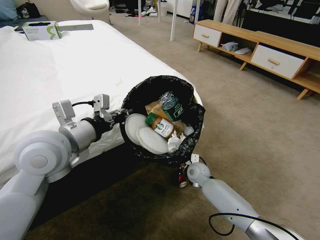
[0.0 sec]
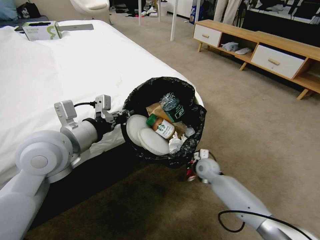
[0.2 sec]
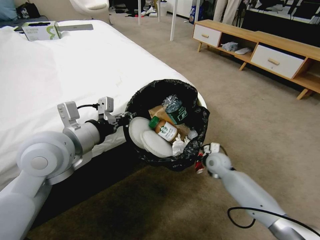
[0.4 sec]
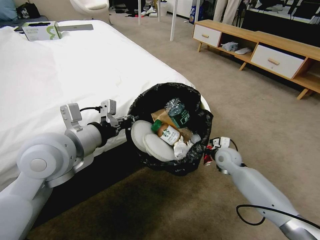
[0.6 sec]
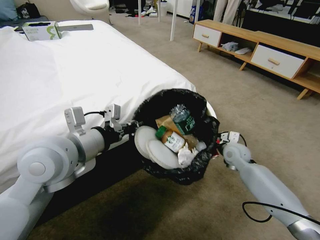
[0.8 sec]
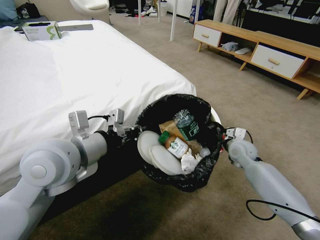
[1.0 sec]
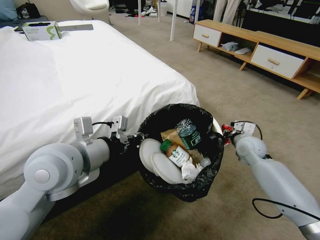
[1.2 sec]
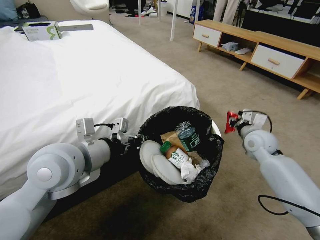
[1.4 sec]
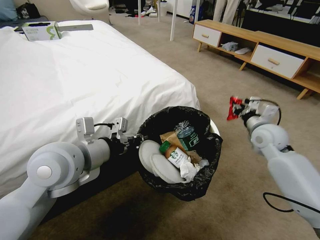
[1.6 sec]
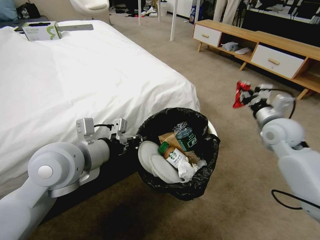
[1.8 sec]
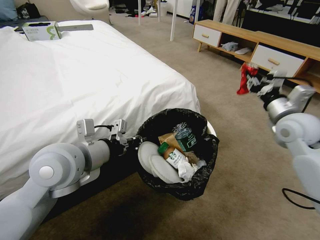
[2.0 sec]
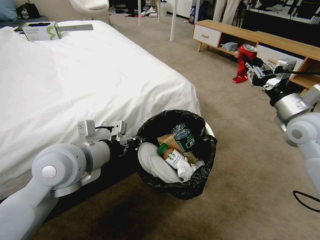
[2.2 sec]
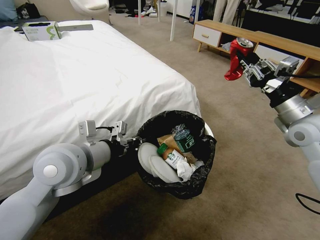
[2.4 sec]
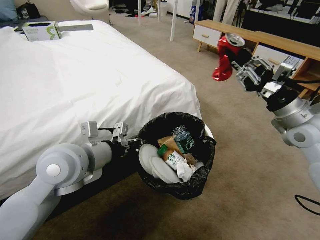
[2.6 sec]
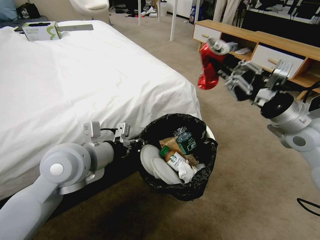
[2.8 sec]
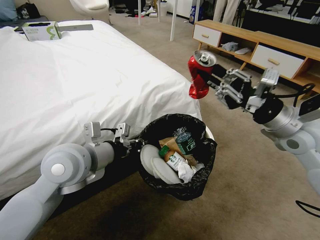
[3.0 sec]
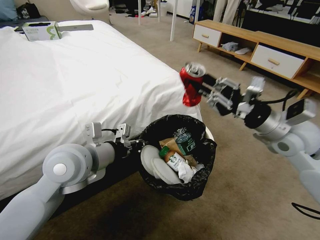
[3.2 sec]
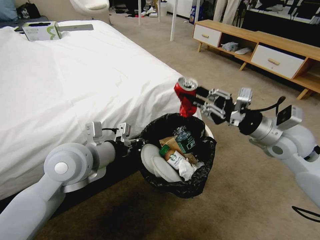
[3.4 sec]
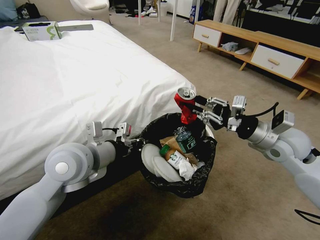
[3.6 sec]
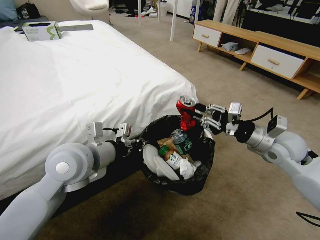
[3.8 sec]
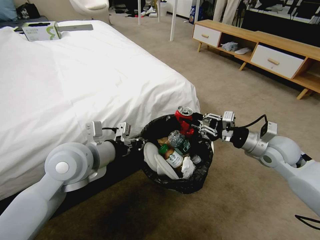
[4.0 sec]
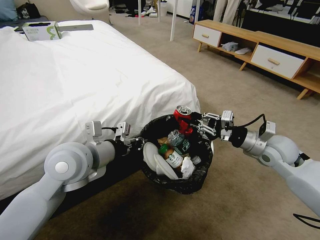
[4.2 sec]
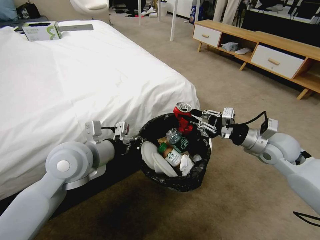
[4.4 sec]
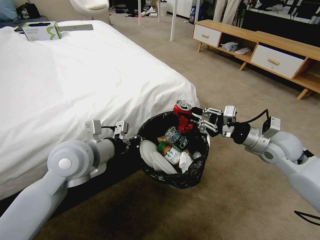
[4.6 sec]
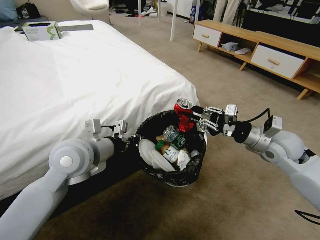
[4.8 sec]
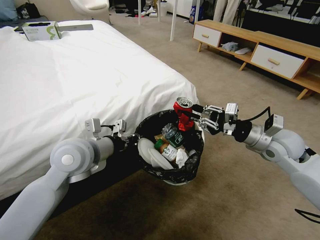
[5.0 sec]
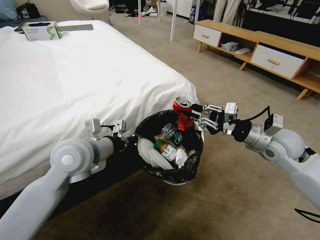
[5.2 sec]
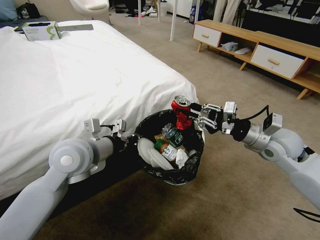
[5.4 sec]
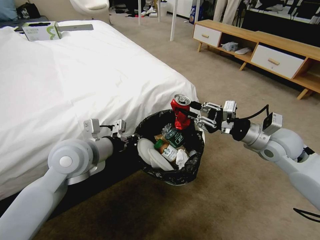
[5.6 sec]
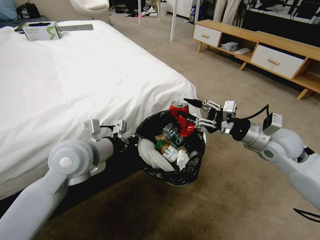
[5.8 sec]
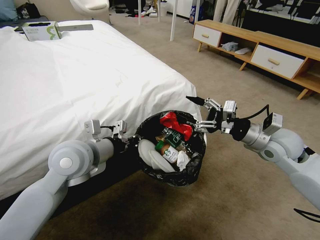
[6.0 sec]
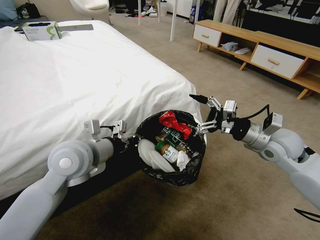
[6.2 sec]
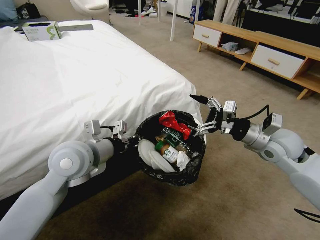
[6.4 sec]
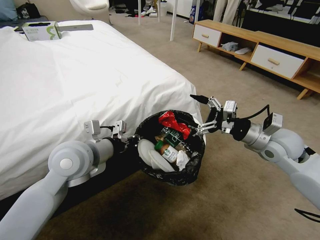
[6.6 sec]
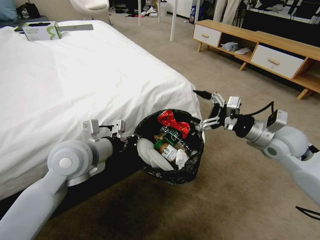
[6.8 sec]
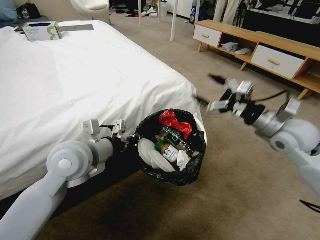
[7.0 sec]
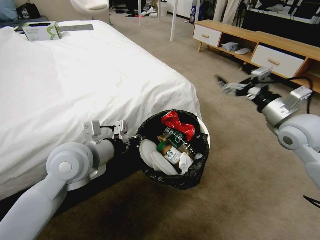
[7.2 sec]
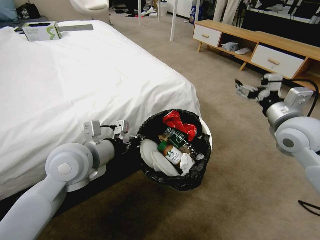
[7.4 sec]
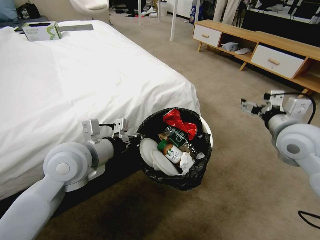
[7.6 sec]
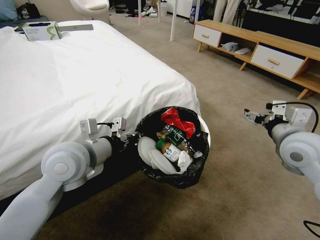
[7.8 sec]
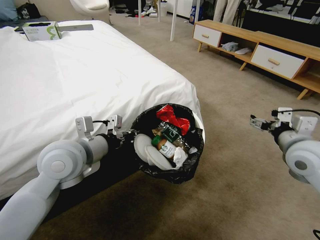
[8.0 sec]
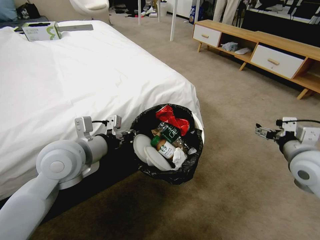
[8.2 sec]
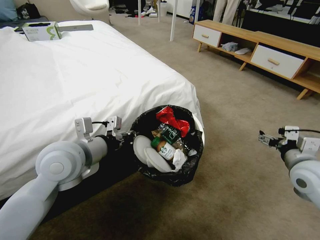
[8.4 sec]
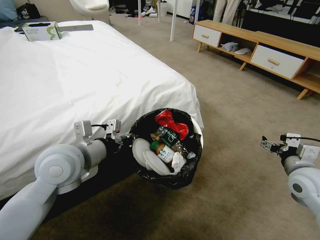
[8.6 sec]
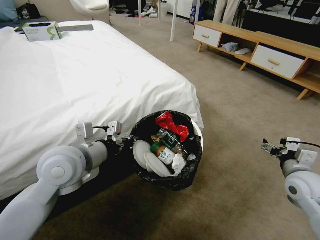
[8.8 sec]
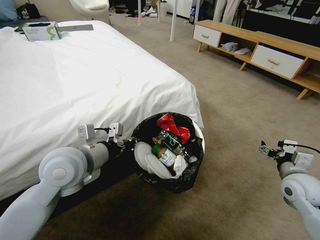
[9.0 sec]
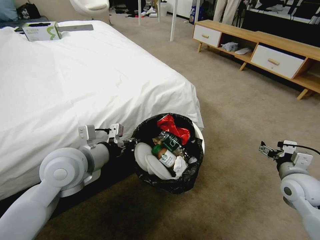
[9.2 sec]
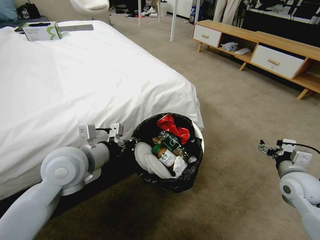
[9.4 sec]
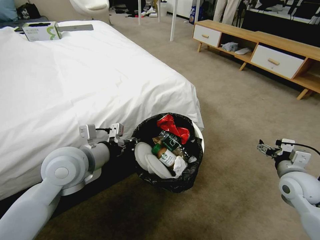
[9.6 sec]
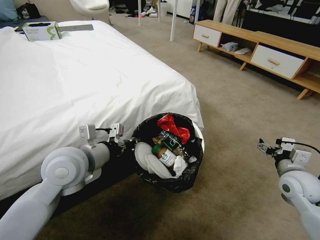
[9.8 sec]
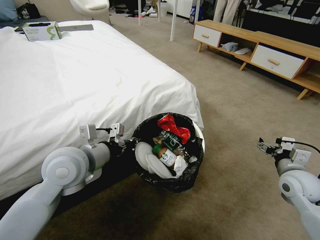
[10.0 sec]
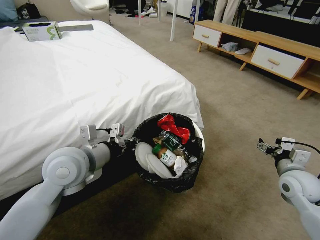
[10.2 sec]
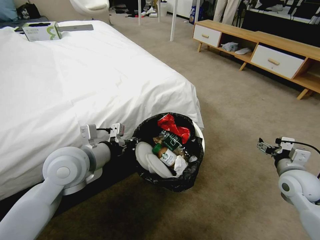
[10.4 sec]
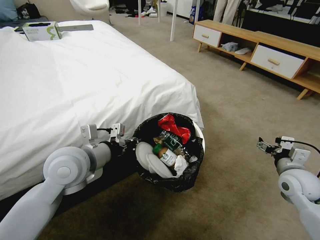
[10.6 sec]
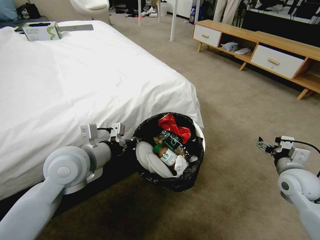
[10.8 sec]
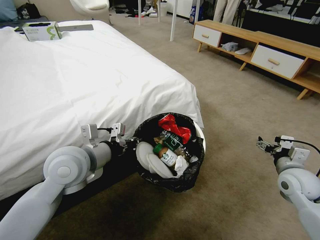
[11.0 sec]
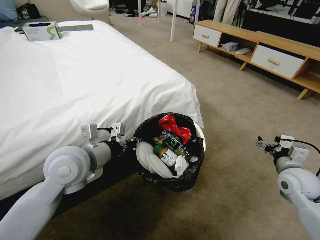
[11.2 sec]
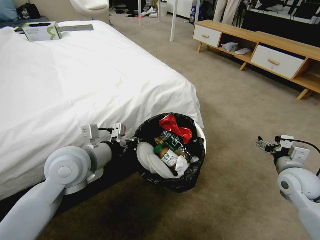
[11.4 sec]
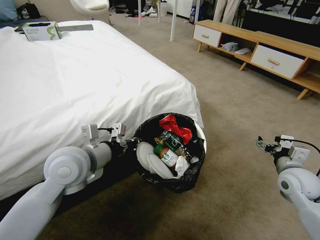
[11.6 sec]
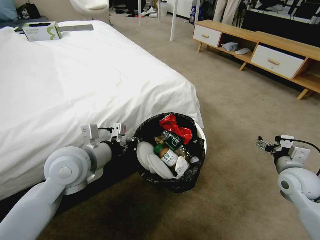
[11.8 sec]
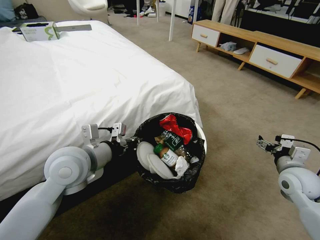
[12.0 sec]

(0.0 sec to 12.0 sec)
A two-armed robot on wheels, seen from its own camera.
Task of the whole recording: Pick up the trash bin and place the garbage on the floor into it.
0.0 sec - 1.6 sec: The right gripper goes approximately 30 cm upward and to the right.
1.6 sec - 3.0 sec: The right gripper shifts some 15 cm upward and backward.
3.0 sec - 4.4 sec: The right gripper travels downward by roughly 10 cm.
4.4 sec - 6.0 sec: The right gripper opens up.
7.6 sec - 9.0 sec: The right gripper heads downward and to the right, covering approximately 15 cm.
9.0 sec - 10.4 sec: Neither gripper changes place.
10.4 sec - 12.0 sec: Both grippers stay put.

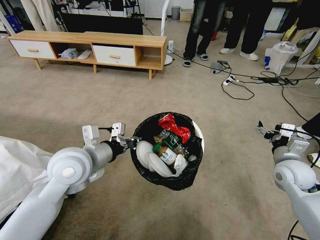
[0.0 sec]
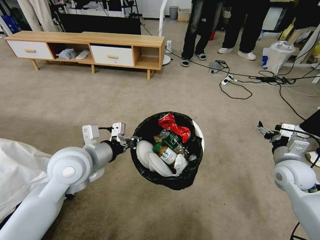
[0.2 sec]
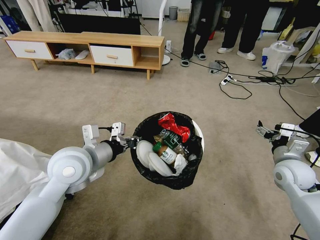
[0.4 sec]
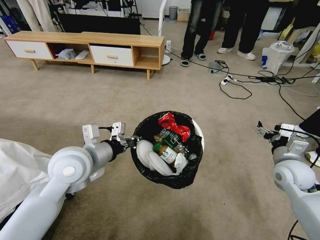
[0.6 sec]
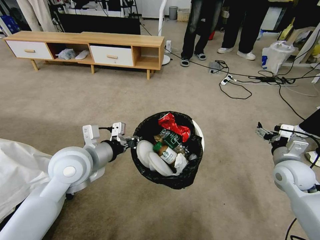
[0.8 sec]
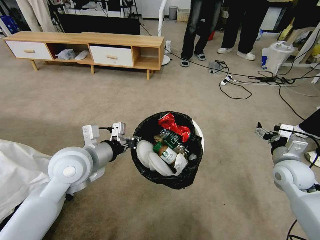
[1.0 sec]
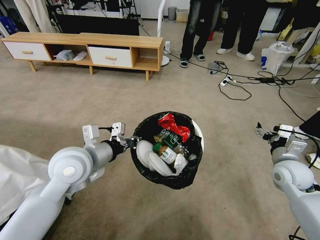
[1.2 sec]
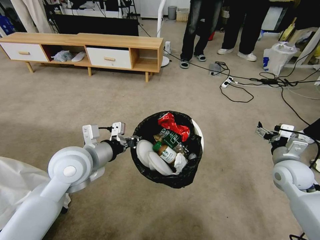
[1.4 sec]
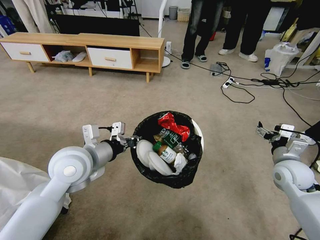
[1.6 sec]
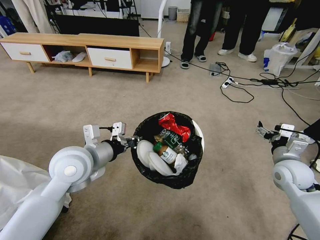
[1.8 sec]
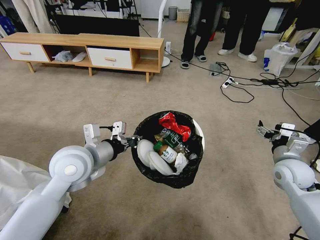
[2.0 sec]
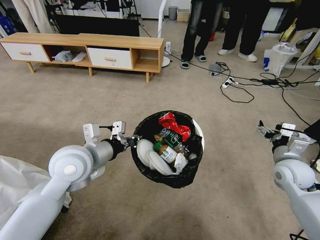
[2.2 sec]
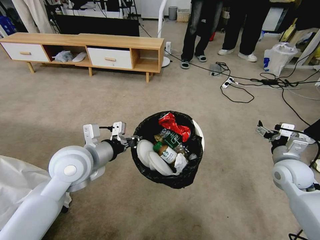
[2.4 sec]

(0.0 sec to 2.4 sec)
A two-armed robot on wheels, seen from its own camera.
Task of the whole recording: Pick up the trash bin and place the garbage on the floor into it.
0.0 sec - 2.4 sec: Neither gripper changes place.
